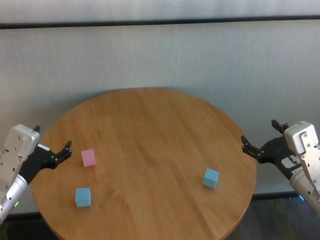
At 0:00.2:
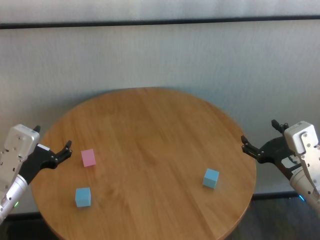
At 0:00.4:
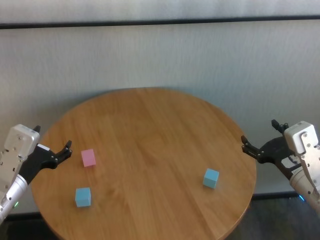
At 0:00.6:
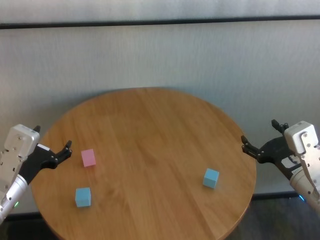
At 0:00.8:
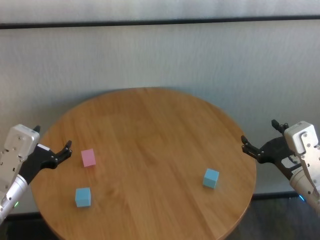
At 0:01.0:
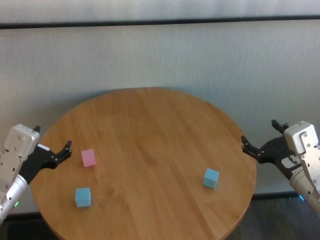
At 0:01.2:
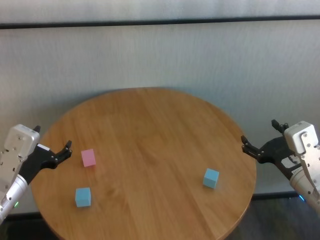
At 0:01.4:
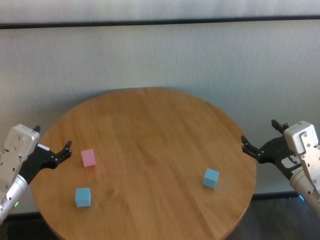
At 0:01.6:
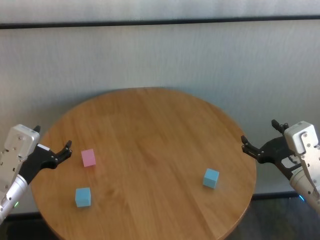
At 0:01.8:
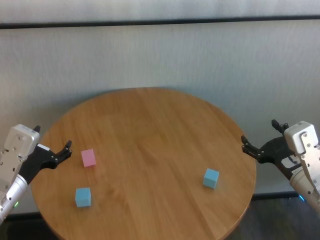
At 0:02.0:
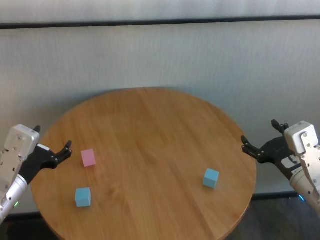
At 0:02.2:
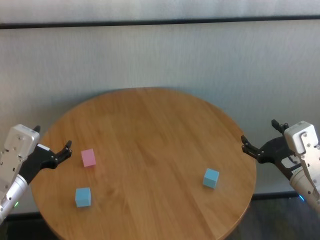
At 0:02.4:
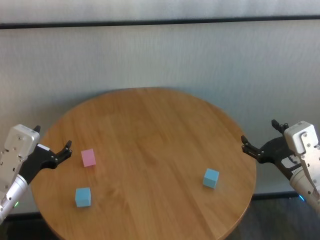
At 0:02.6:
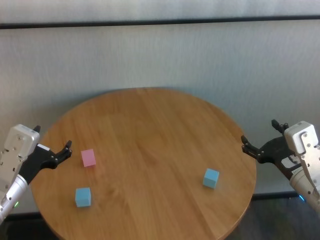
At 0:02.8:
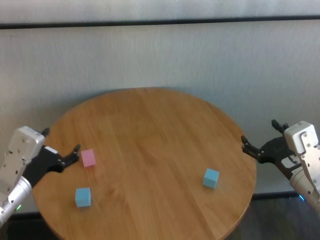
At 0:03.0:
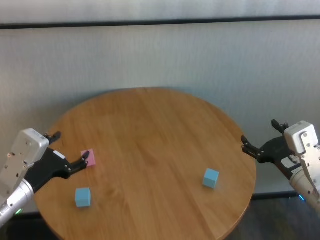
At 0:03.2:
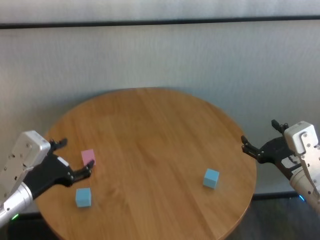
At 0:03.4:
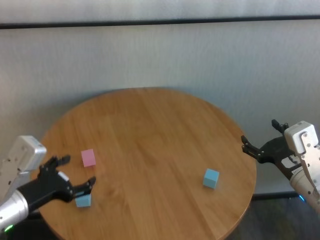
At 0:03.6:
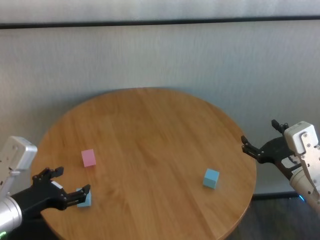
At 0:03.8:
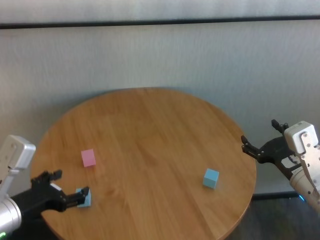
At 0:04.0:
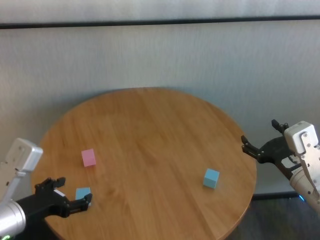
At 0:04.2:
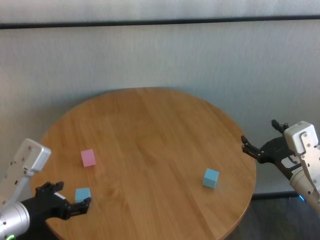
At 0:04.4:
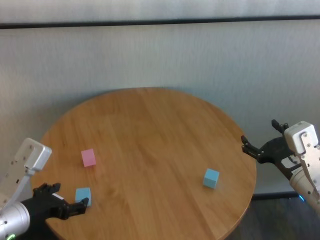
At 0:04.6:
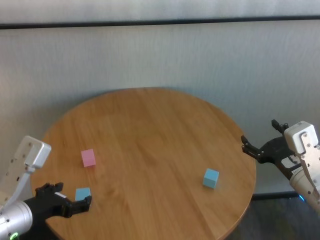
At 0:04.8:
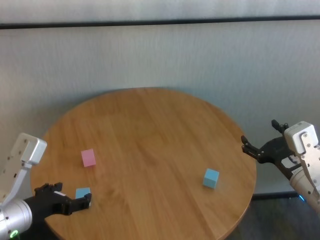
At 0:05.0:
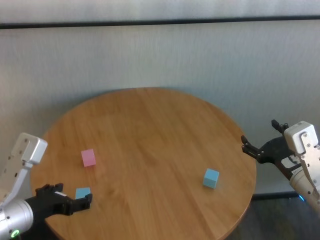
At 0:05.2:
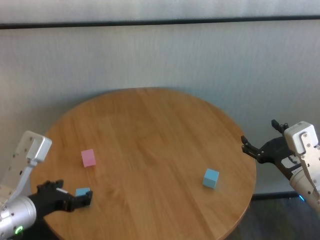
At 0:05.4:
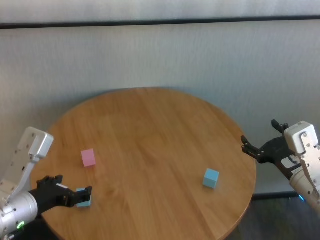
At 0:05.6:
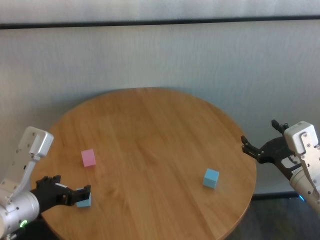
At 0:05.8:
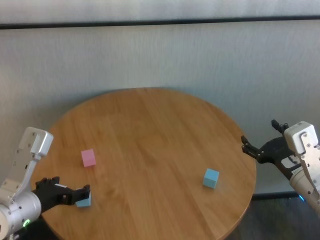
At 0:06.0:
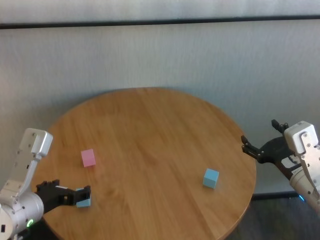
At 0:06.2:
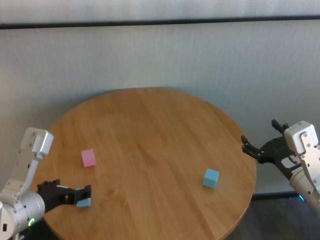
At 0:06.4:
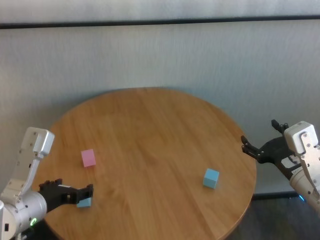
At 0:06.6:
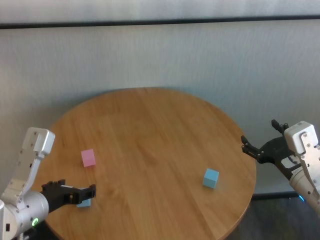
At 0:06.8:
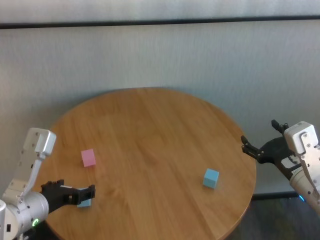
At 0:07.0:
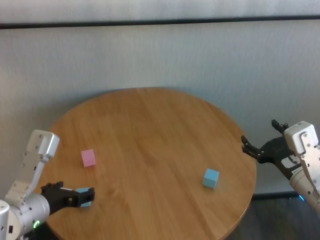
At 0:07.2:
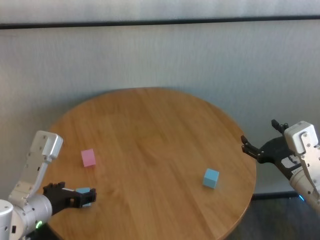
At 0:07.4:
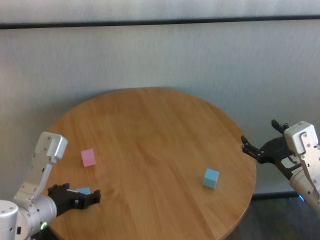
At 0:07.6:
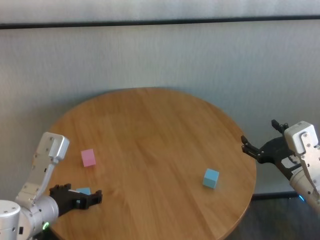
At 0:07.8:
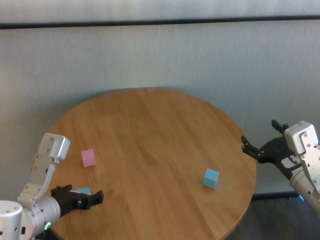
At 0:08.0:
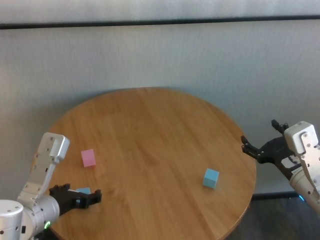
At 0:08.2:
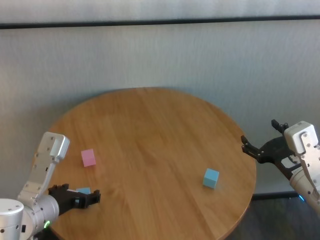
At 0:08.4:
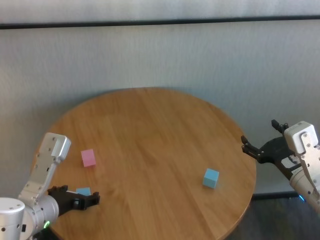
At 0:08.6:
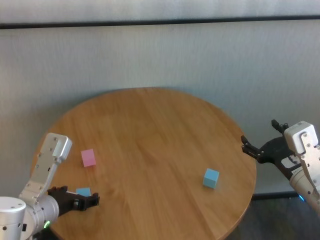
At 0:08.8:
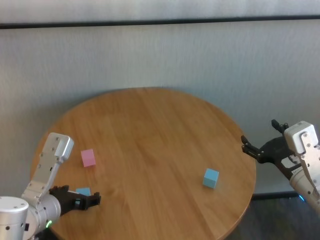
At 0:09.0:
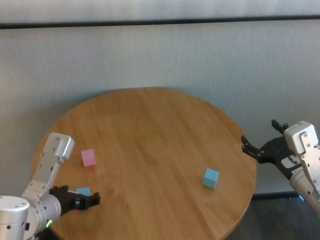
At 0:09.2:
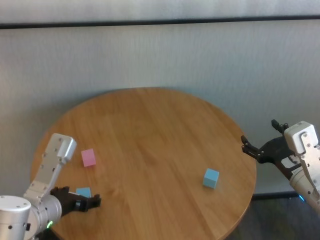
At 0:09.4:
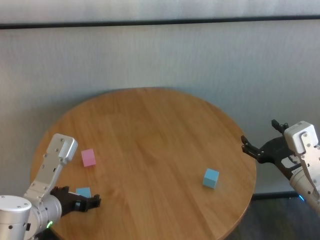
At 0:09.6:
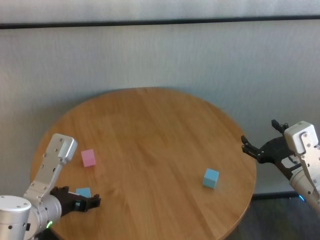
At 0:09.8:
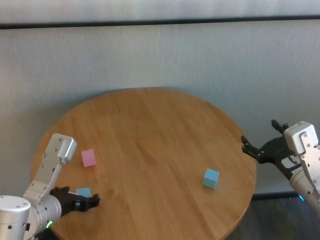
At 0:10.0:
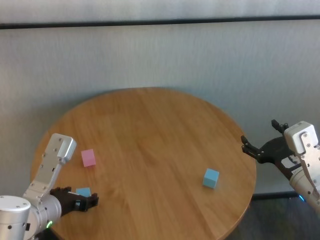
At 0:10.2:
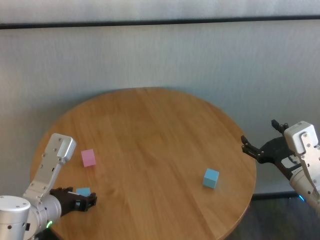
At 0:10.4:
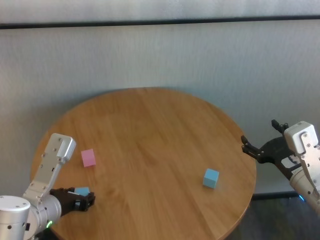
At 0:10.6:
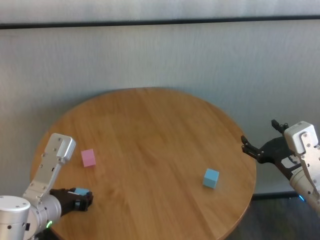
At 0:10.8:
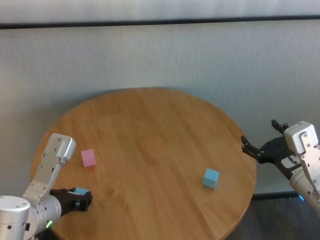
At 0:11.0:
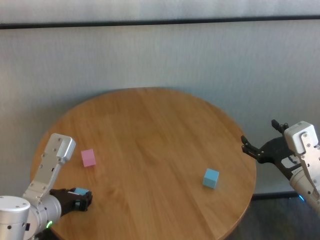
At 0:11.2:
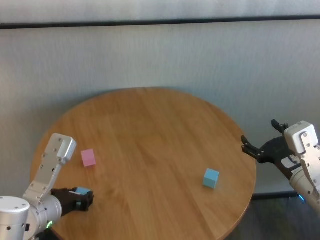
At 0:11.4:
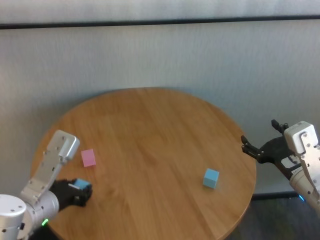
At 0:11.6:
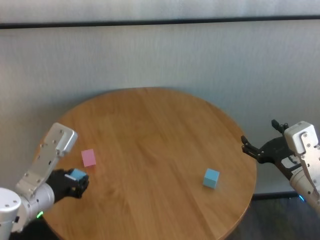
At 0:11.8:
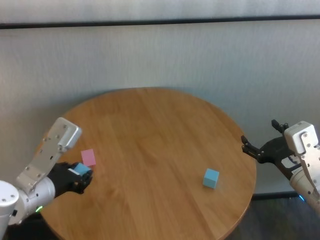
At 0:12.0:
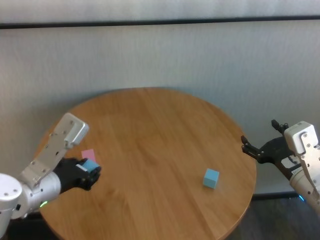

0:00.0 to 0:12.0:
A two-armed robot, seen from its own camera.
Task of the whole recording: stack building blocks on the table.
Step, 0:00.0 to 0:10.6: Grasp the blue building block with left gripper.

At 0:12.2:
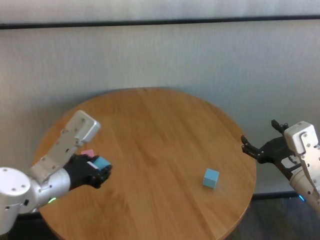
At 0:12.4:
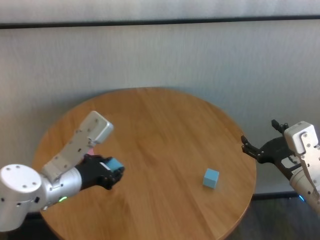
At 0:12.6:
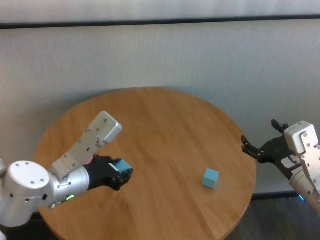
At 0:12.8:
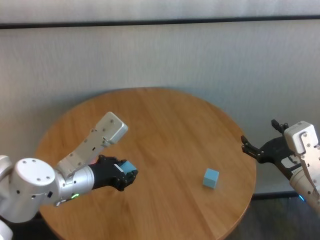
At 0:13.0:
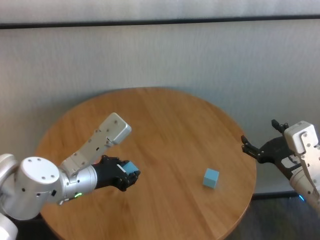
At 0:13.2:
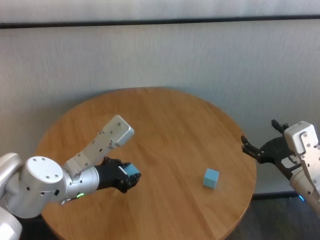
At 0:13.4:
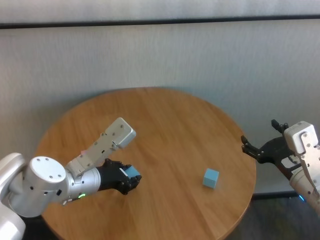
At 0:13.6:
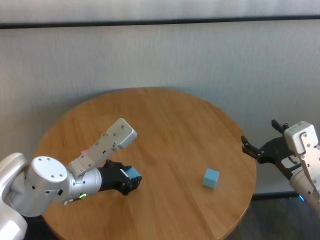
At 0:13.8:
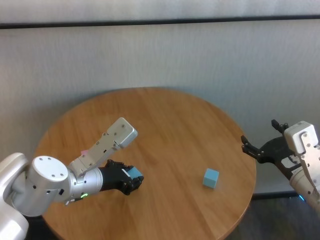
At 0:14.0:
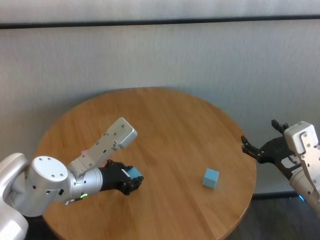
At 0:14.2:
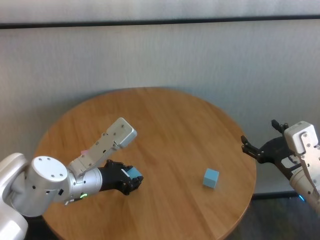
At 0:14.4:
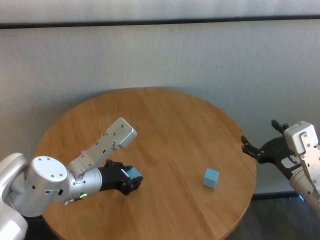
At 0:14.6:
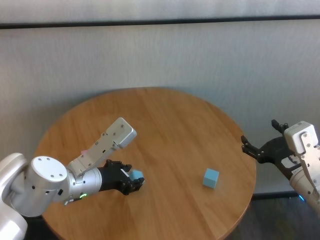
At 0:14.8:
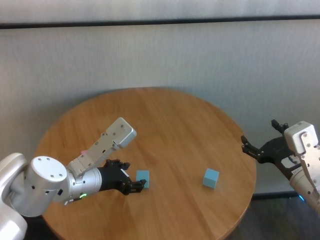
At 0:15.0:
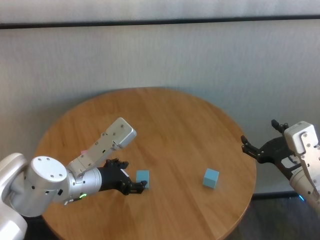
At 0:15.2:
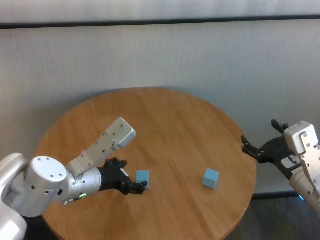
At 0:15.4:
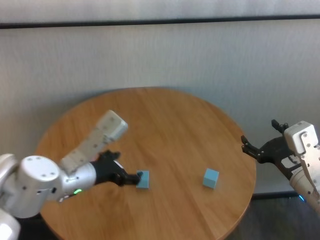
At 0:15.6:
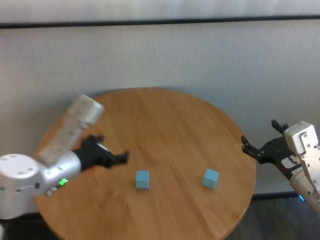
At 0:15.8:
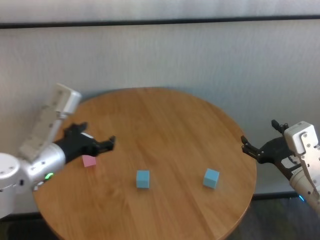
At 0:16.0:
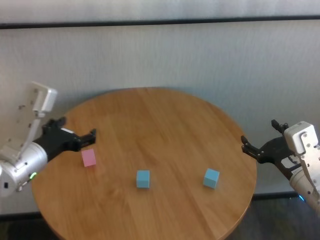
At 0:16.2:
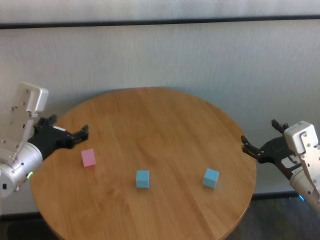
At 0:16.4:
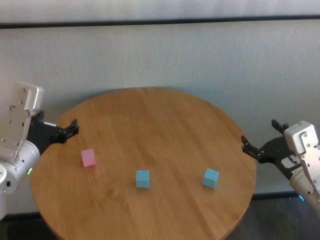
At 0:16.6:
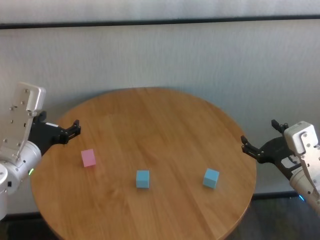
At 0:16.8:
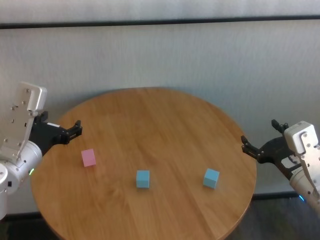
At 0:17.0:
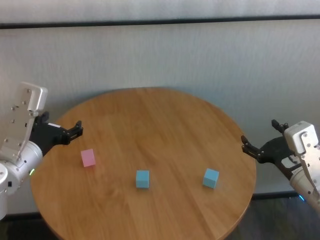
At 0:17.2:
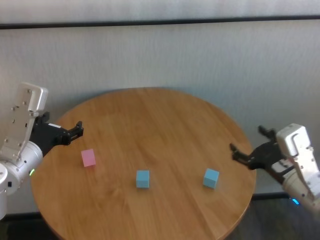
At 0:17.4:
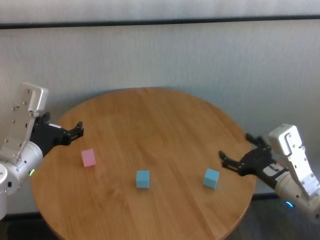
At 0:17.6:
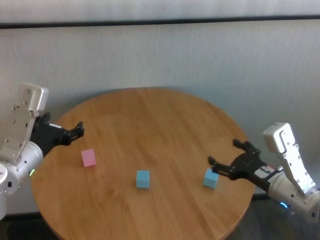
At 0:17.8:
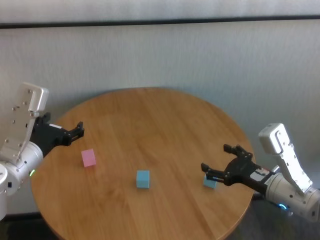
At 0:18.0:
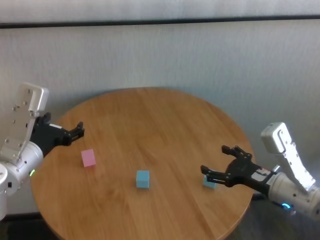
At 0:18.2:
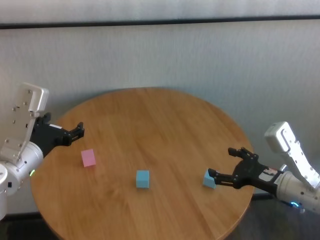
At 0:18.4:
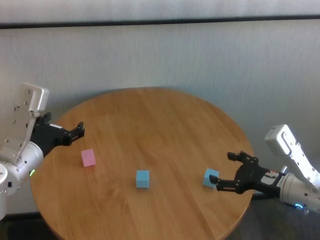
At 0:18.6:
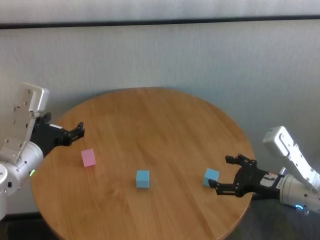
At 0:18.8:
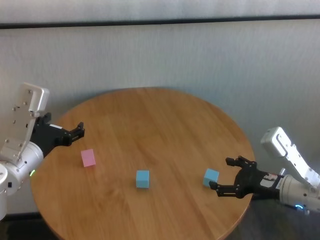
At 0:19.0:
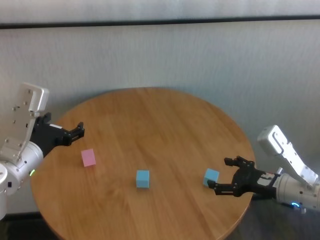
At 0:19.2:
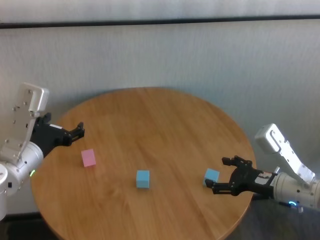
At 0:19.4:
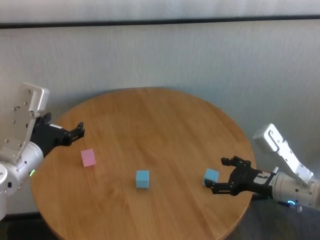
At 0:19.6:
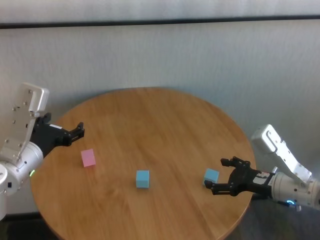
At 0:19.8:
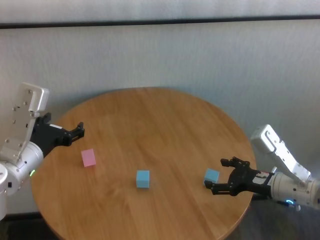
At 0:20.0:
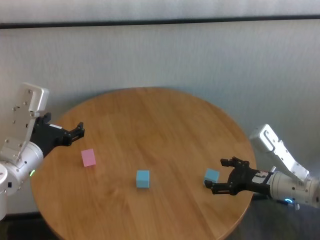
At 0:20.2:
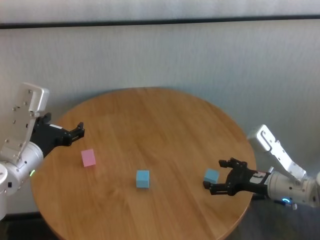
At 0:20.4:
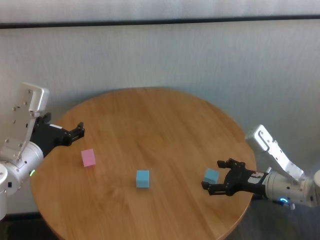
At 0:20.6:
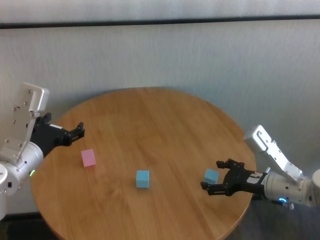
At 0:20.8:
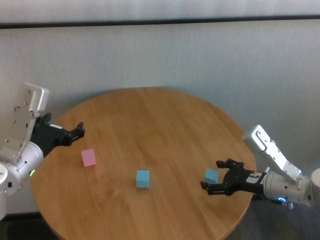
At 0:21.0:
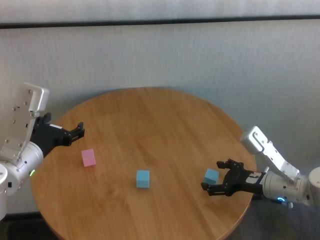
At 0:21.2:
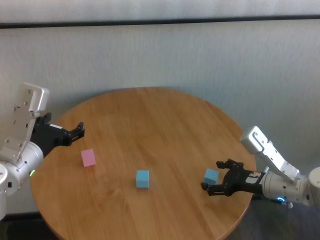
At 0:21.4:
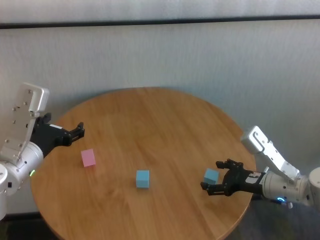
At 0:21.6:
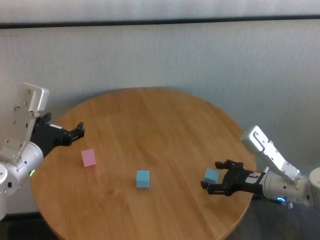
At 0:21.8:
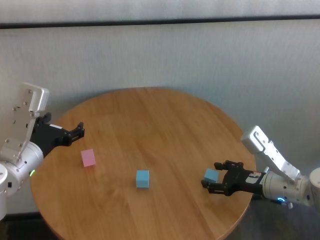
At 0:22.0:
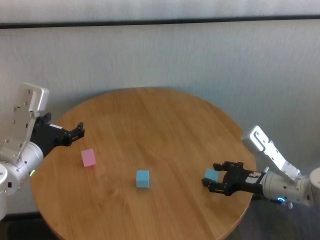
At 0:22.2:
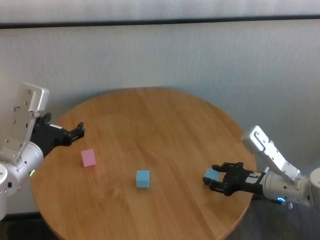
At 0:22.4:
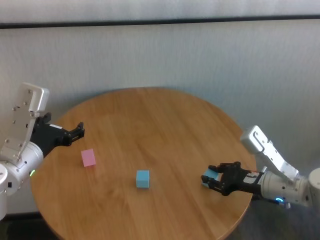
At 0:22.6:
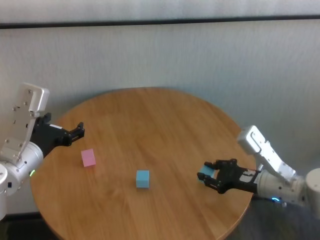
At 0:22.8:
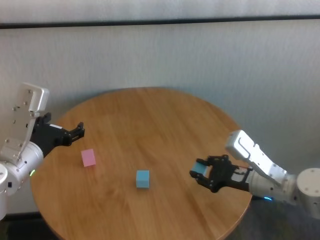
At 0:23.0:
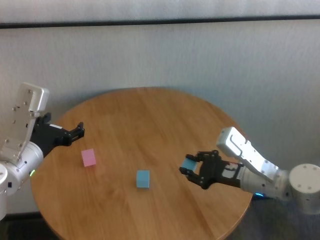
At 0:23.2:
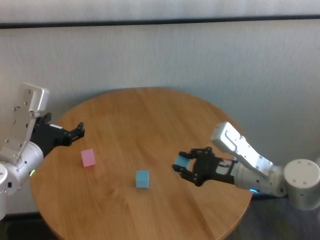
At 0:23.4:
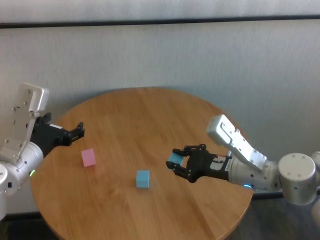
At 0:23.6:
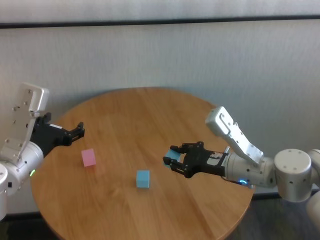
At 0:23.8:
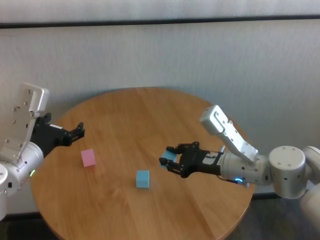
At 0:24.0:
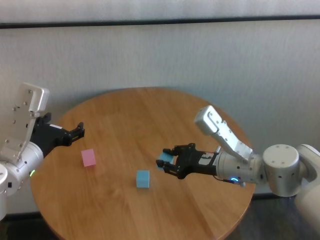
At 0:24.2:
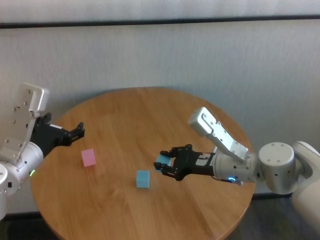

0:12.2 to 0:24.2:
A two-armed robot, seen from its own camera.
Task of the whole recording: stack building blocks on the table.
Step, 0:12.2 to 0:14.8: Place the blue building block in the center of table with left gripper.
Step, 0:15.0 to 0:22.2: Grasp the blue building block with right gripper.
